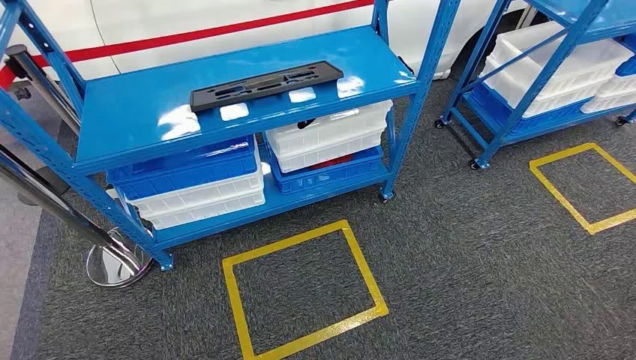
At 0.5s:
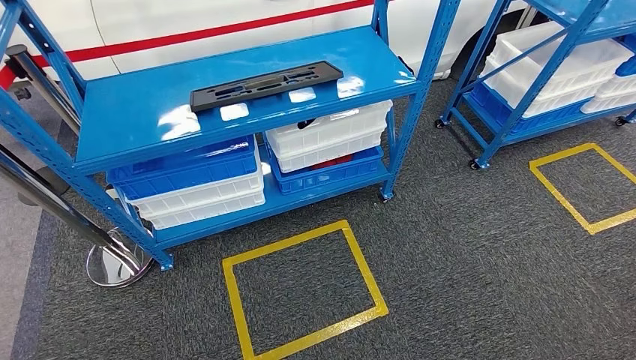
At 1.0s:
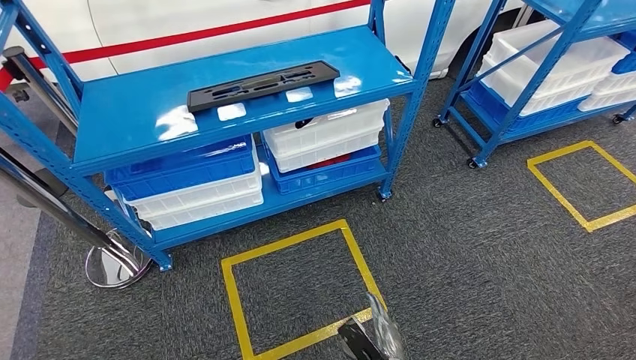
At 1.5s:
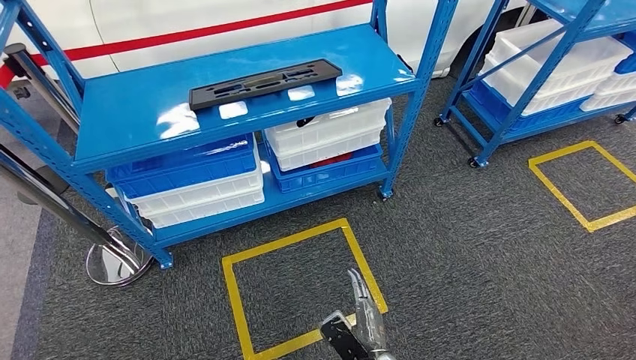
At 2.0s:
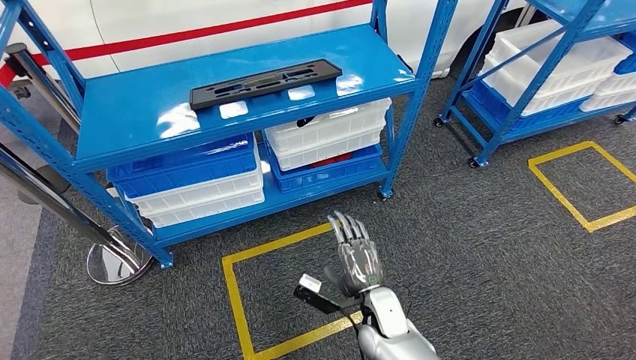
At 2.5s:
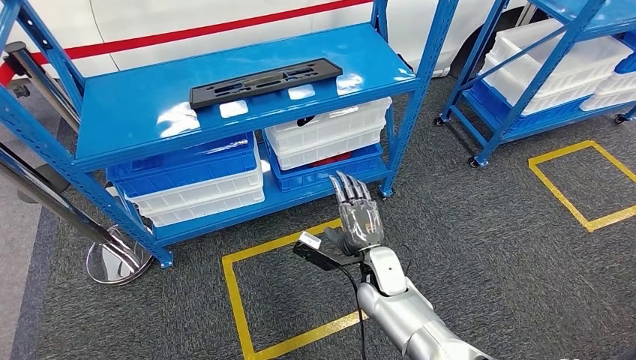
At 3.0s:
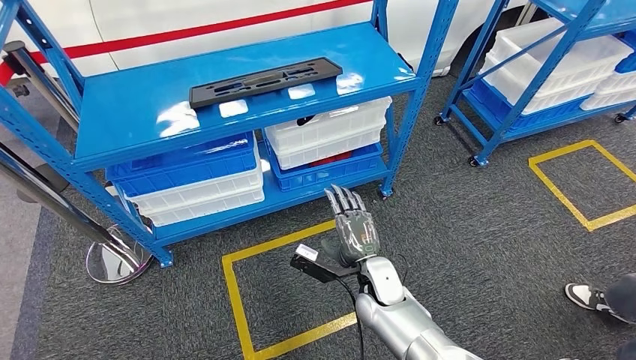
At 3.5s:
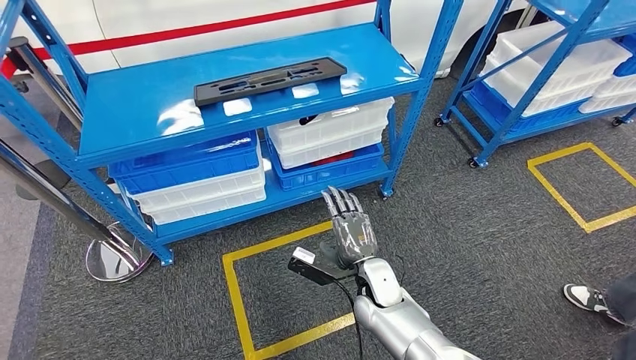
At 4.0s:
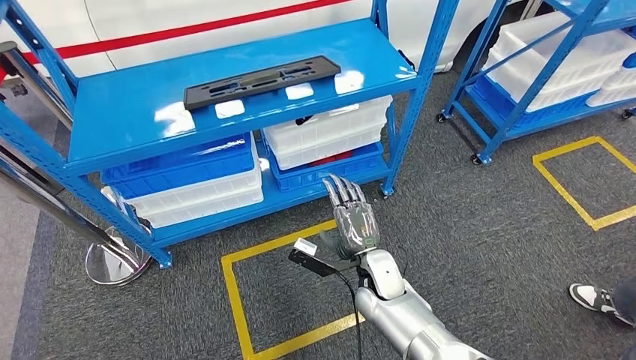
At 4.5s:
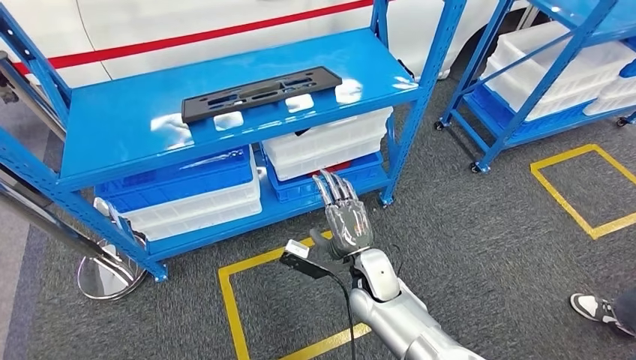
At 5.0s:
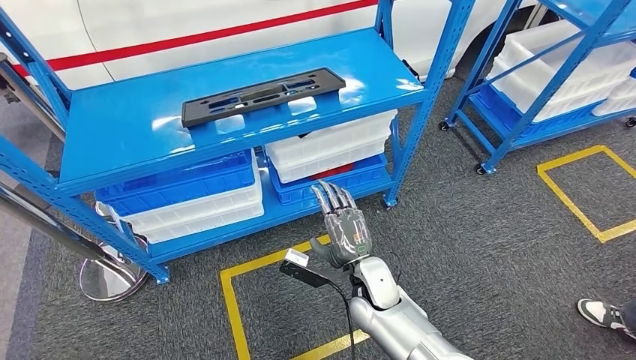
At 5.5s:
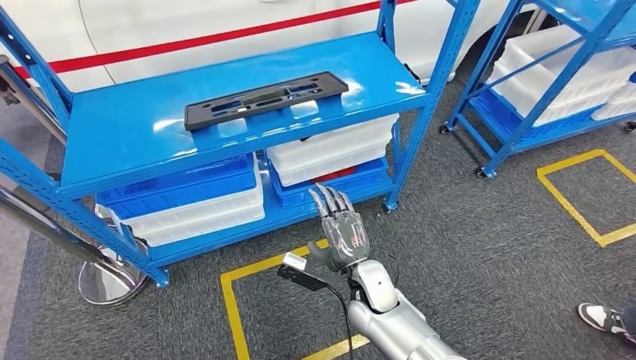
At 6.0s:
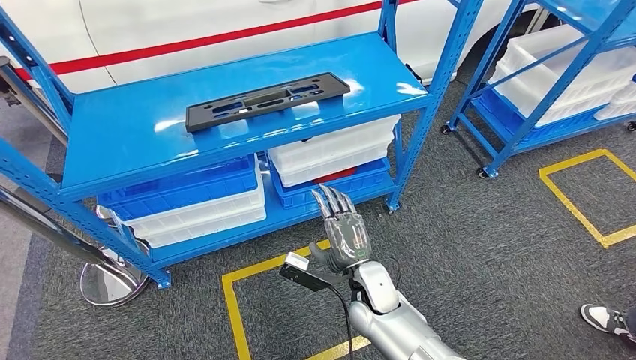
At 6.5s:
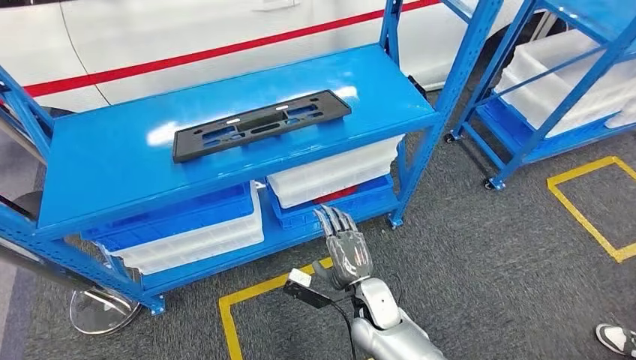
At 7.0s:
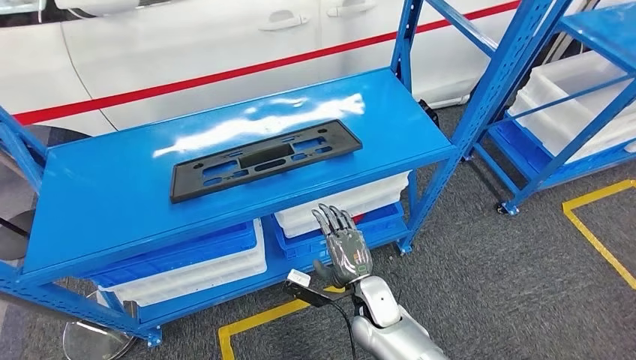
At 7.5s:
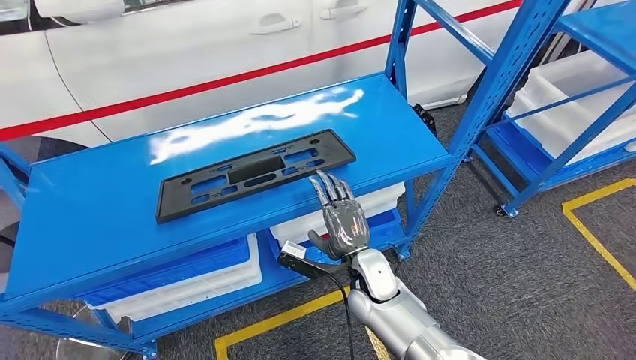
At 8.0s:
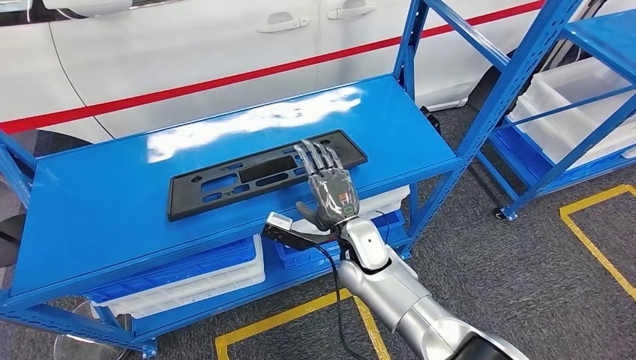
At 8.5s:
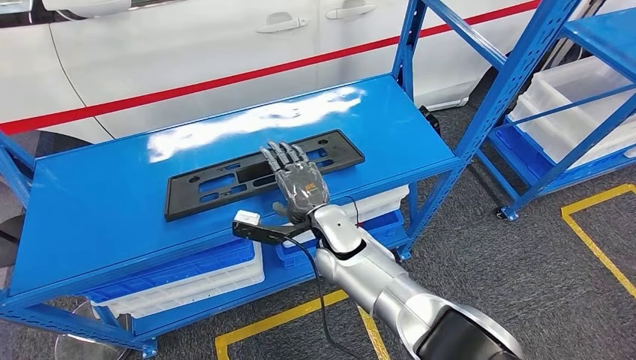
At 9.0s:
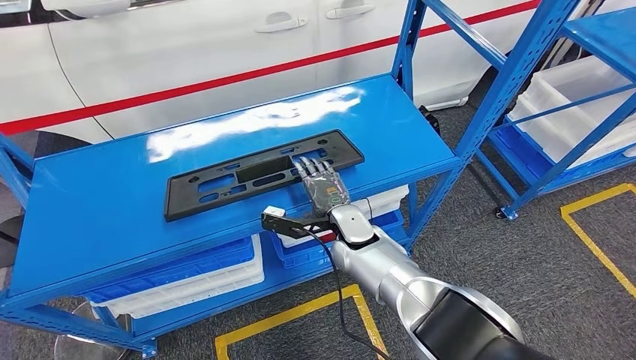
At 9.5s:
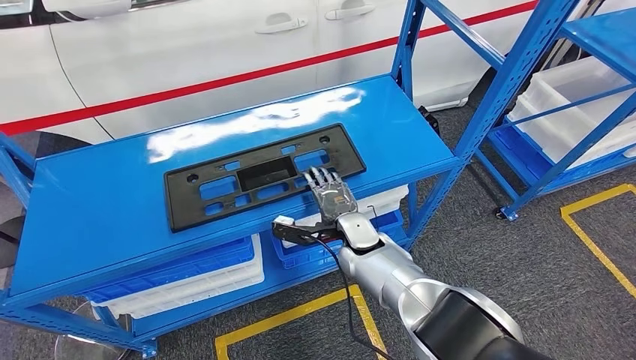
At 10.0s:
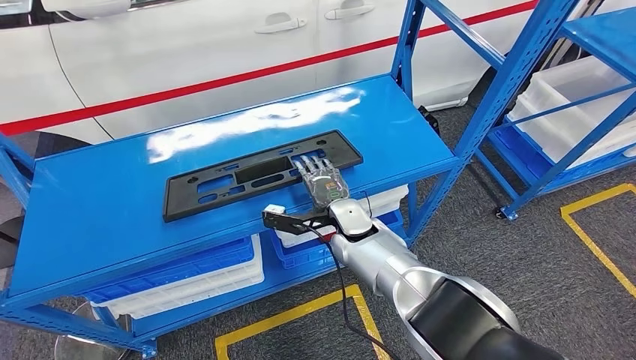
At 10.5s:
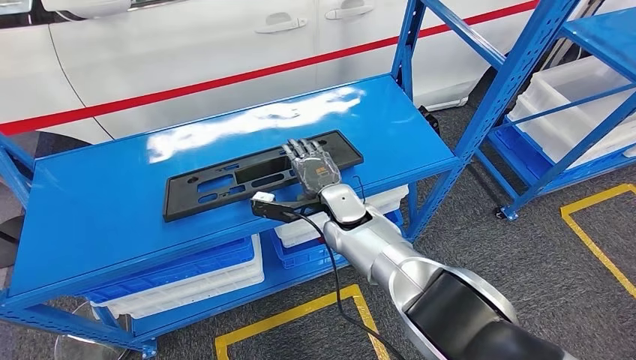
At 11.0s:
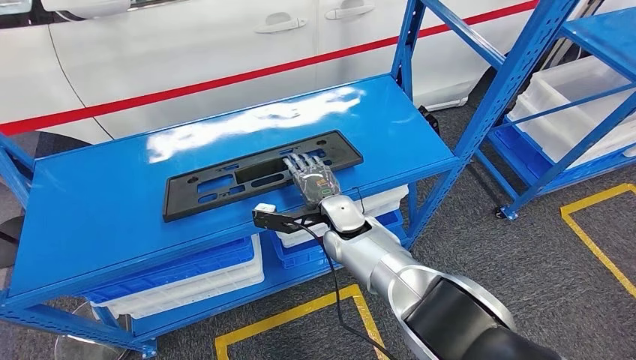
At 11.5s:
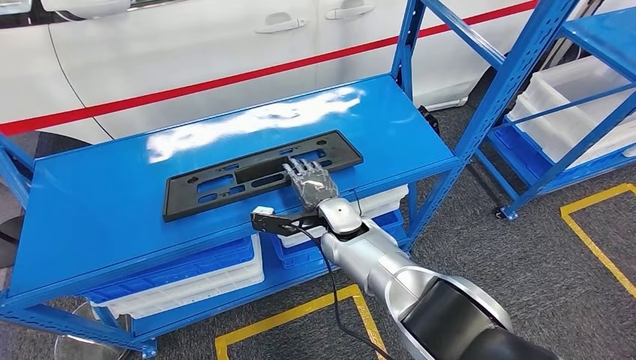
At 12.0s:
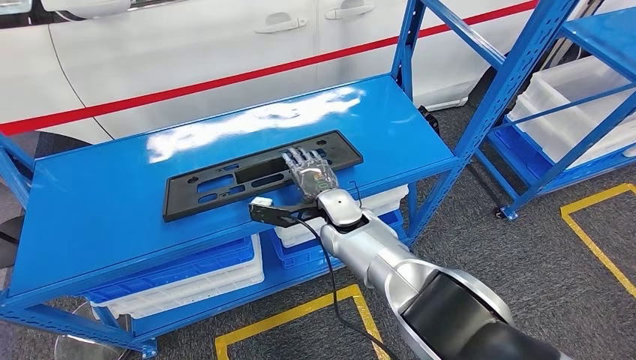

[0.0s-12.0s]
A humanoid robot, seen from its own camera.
8.0s to 10.0s: The right hand goes roughly 5 cm forward.
10.0s to 12.0s: The hands move only a little.

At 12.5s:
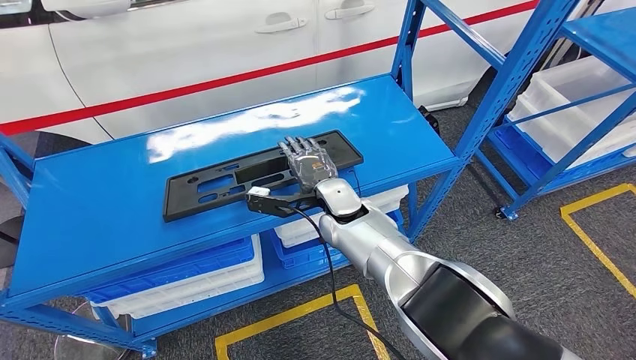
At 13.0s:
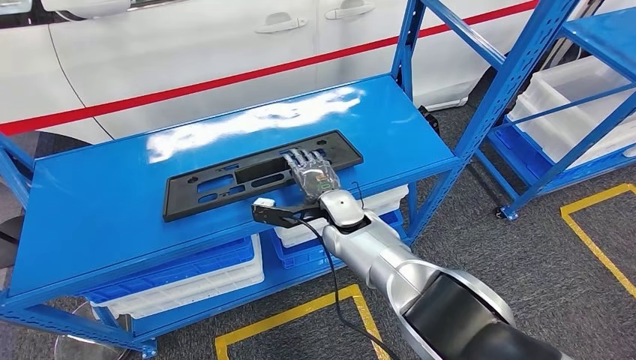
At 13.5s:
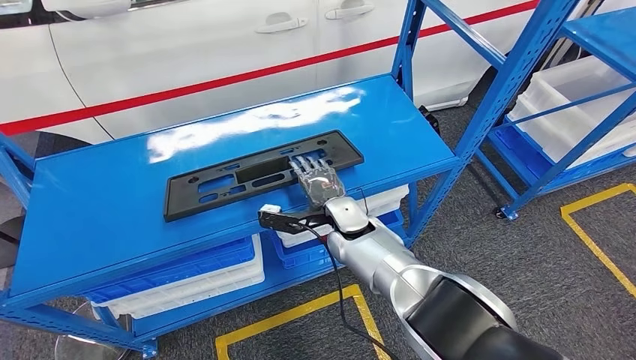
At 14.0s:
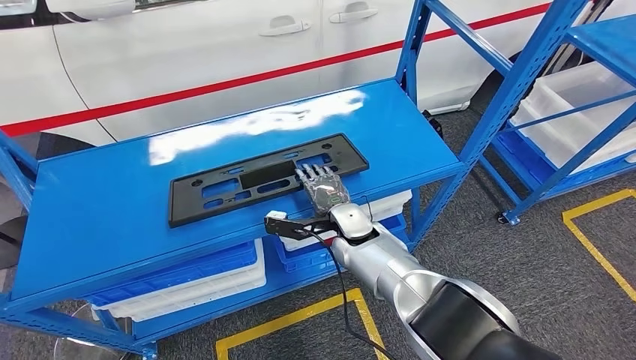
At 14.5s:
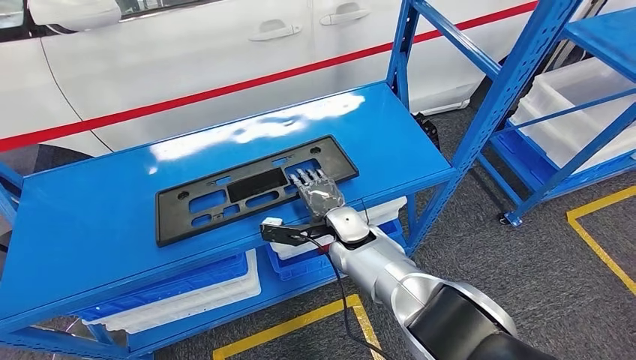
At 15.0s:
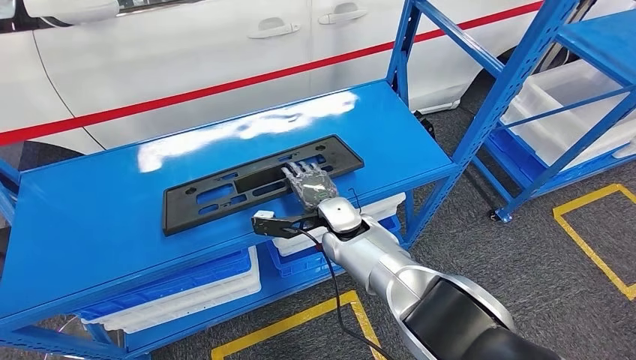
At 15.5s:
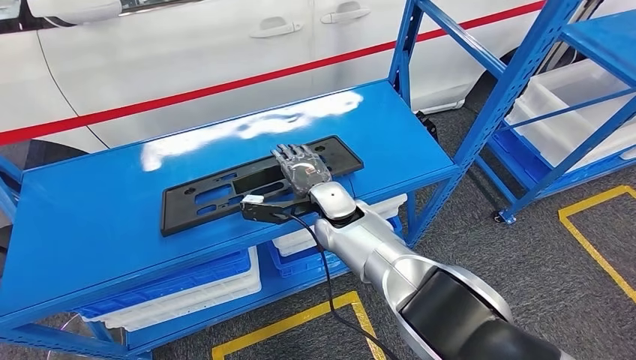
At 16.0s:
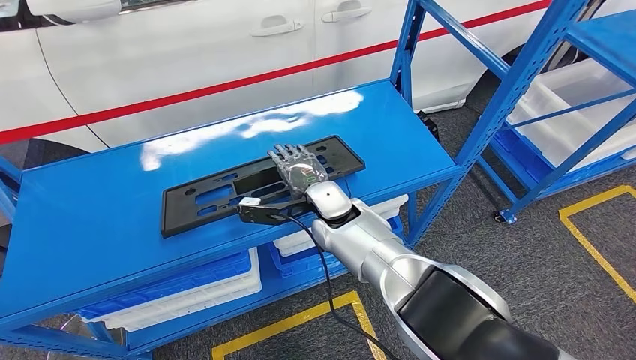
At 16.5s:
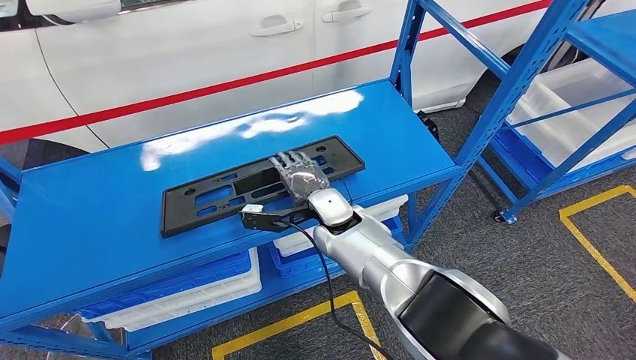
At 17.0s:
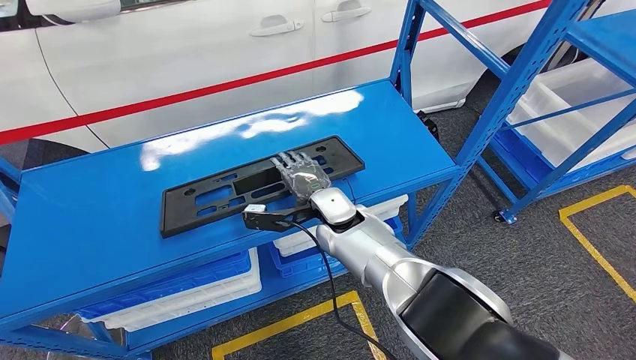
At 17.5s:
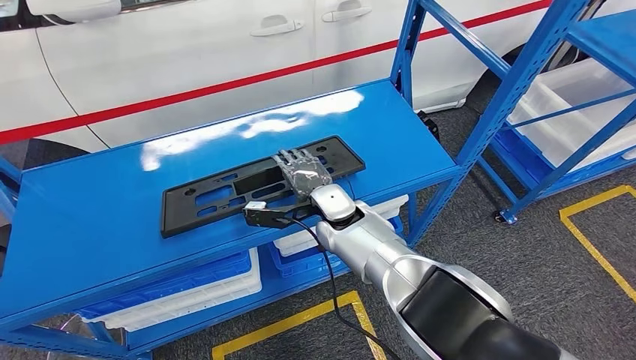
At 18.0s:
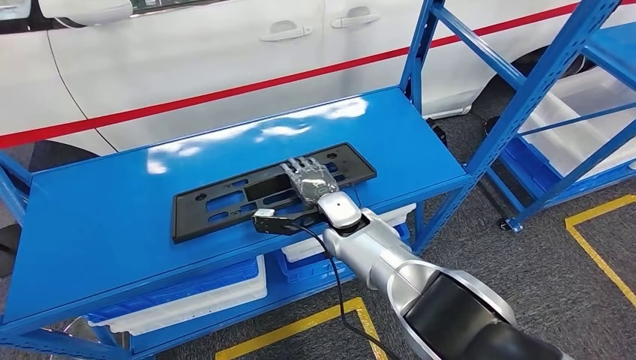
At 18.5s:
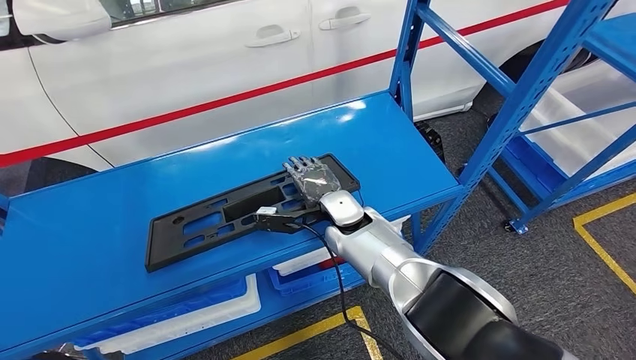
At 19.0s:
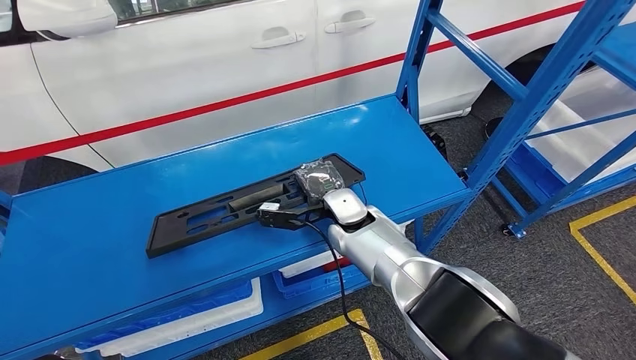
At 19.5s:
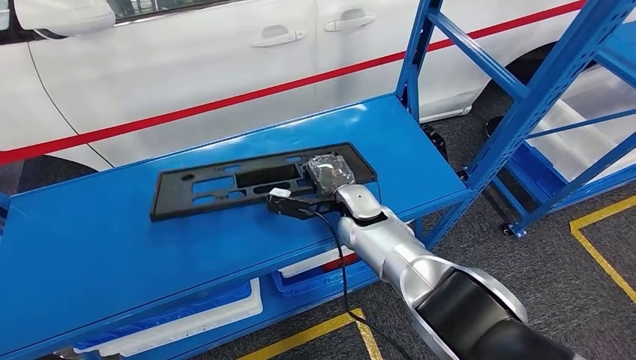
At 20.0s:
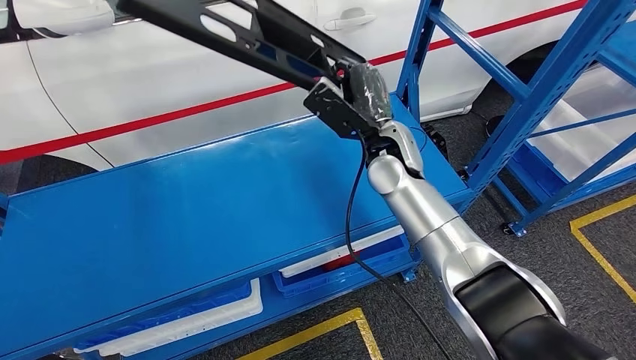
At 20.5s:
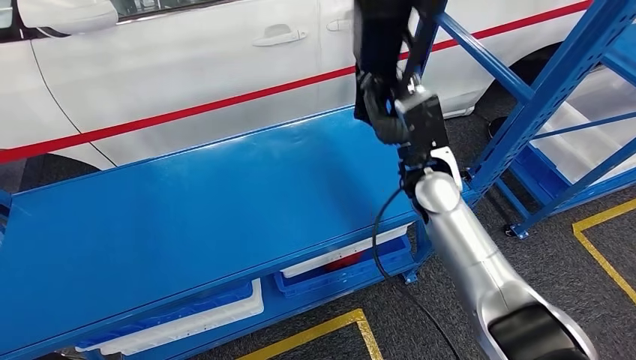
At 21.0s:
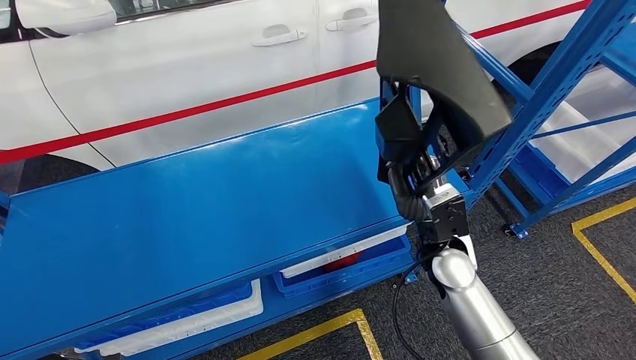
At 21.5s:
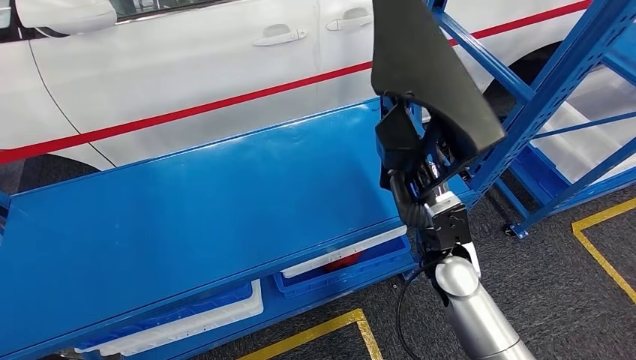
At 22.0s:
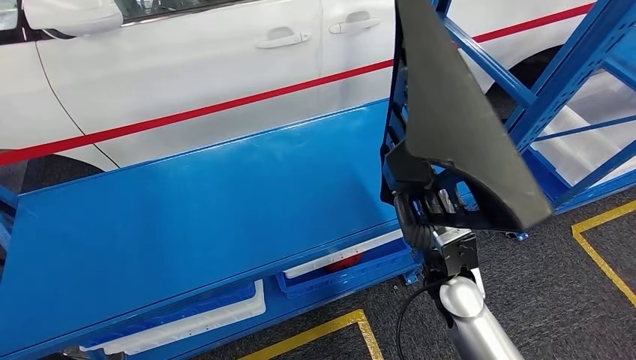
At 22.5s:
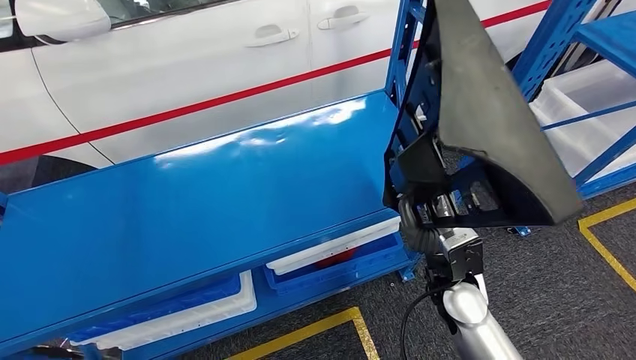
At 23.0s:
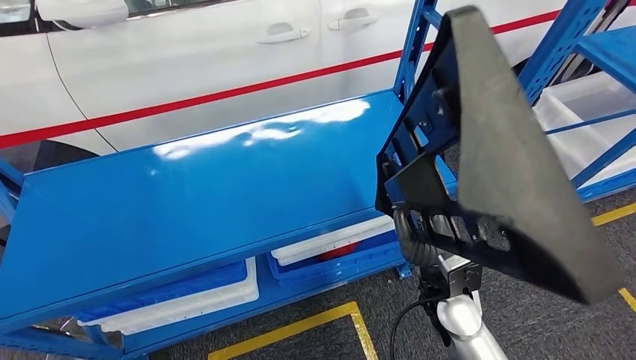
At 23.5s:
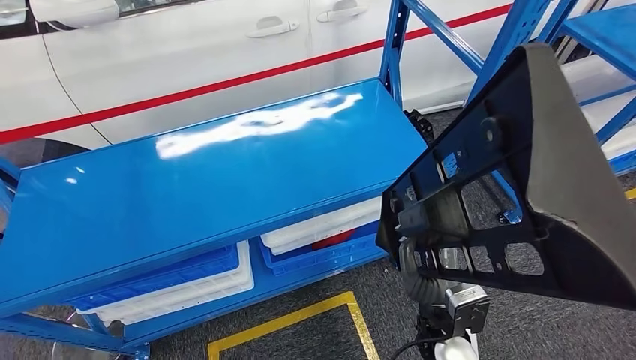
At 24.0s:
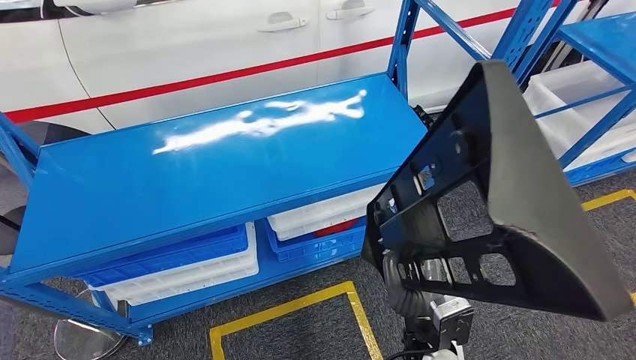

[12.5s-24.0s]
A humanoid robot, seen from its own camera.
Step, 12.5s to 21.5s: Pick up the large material from the shelf.
